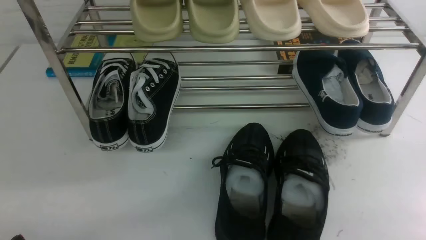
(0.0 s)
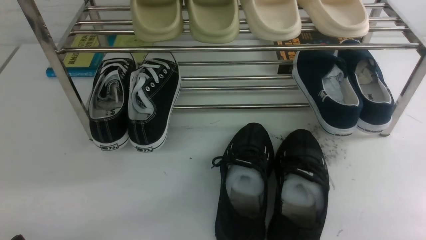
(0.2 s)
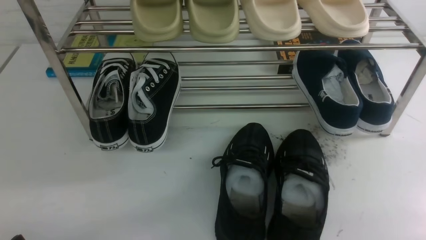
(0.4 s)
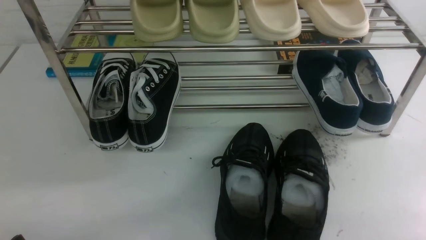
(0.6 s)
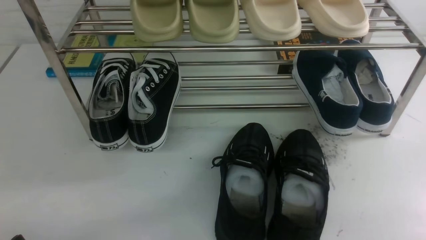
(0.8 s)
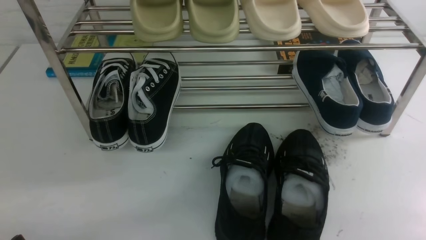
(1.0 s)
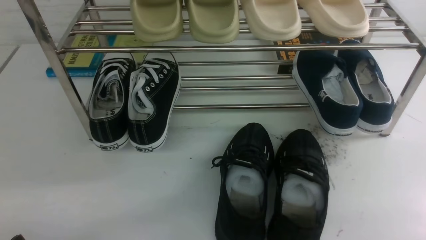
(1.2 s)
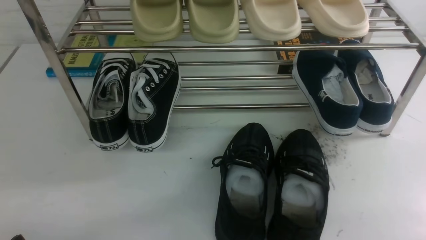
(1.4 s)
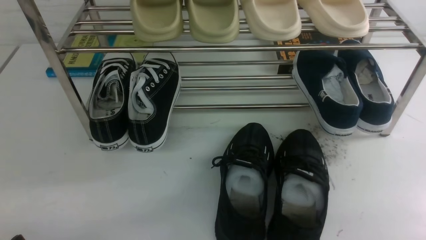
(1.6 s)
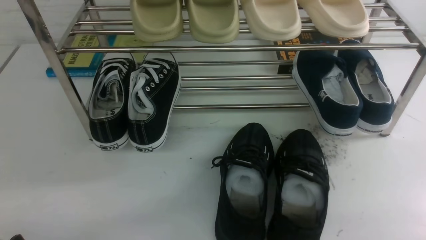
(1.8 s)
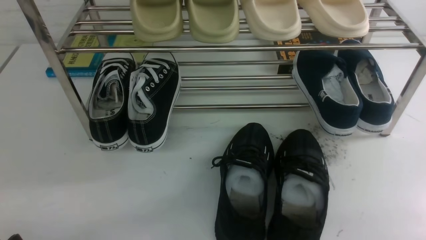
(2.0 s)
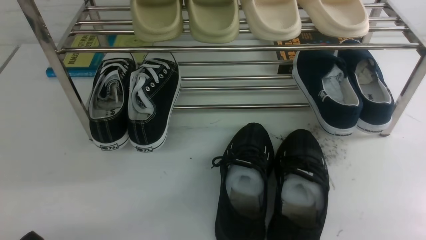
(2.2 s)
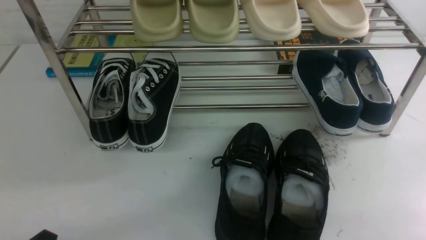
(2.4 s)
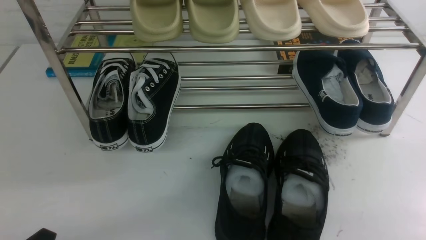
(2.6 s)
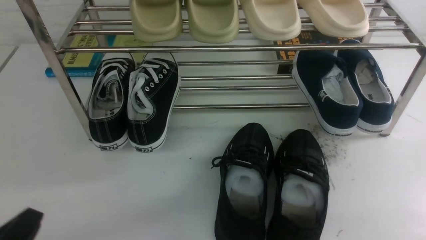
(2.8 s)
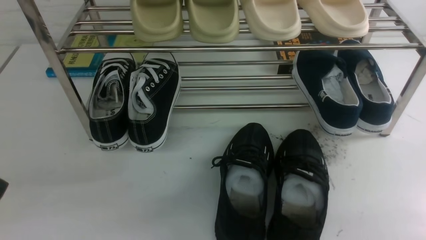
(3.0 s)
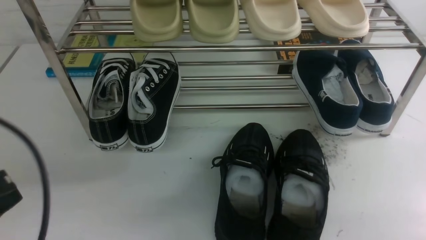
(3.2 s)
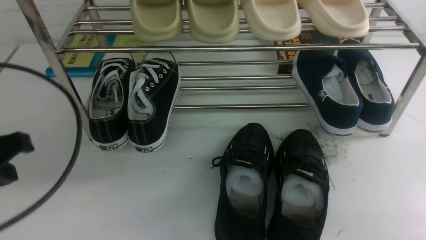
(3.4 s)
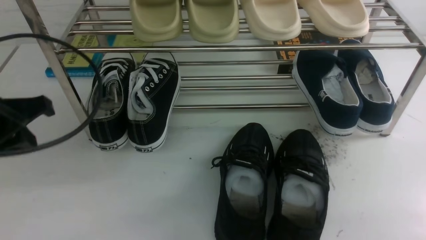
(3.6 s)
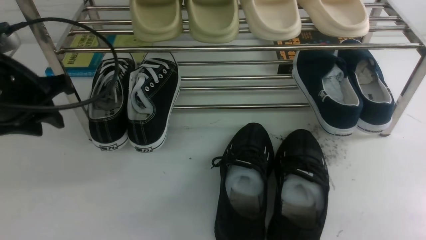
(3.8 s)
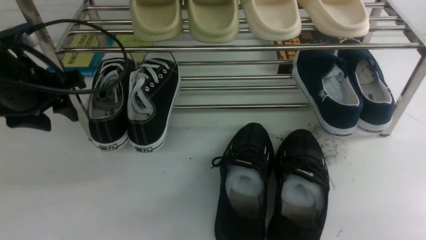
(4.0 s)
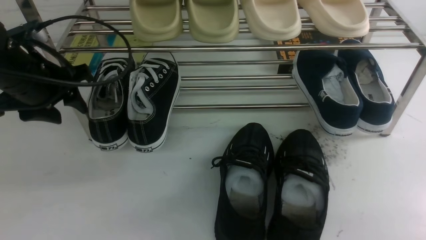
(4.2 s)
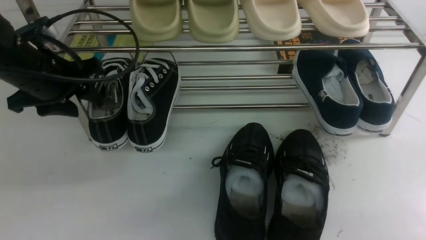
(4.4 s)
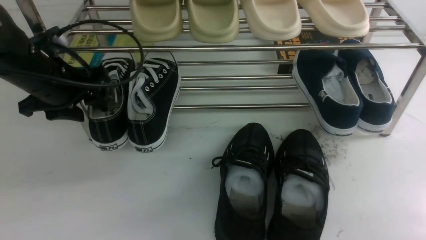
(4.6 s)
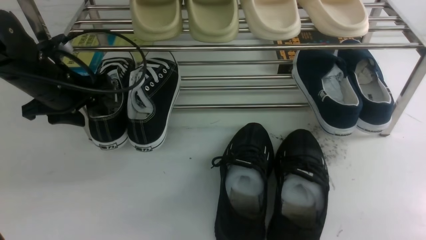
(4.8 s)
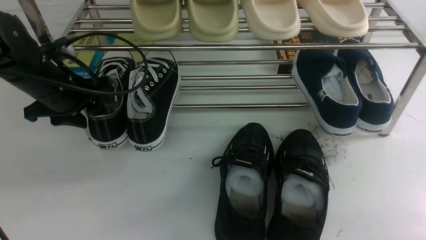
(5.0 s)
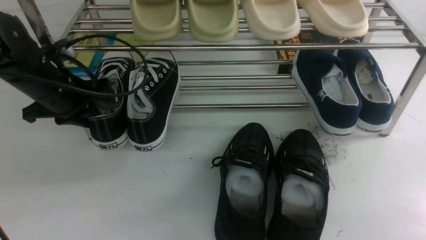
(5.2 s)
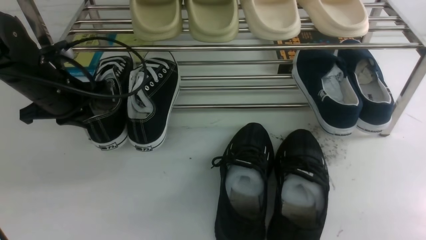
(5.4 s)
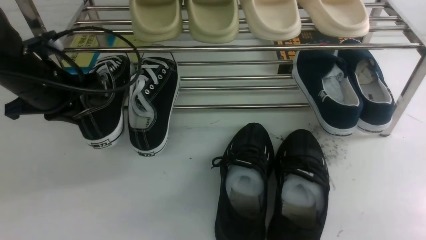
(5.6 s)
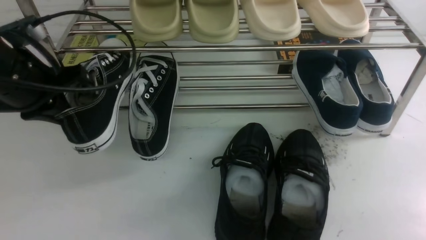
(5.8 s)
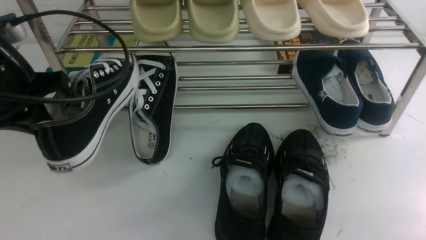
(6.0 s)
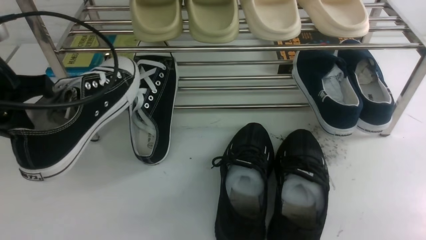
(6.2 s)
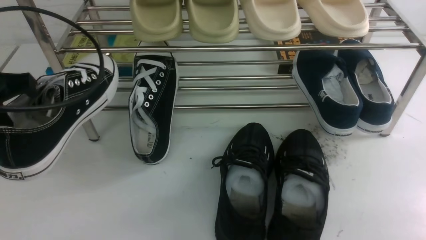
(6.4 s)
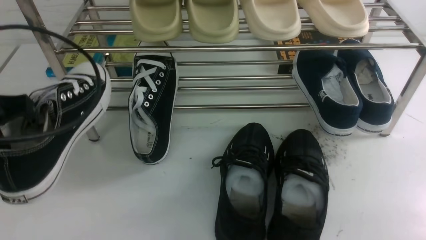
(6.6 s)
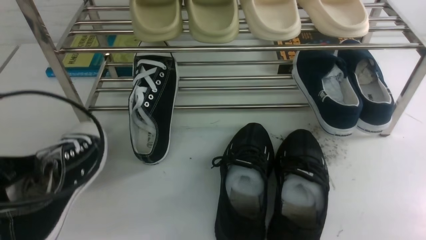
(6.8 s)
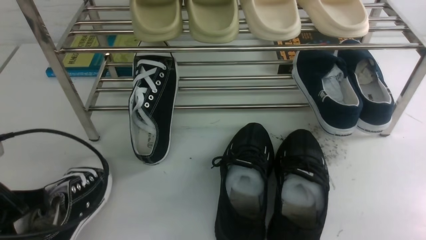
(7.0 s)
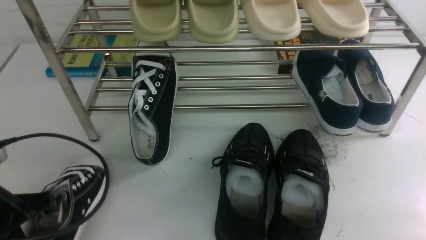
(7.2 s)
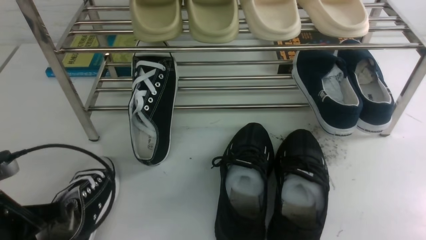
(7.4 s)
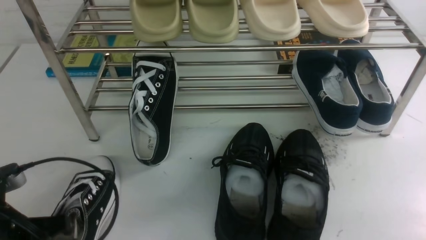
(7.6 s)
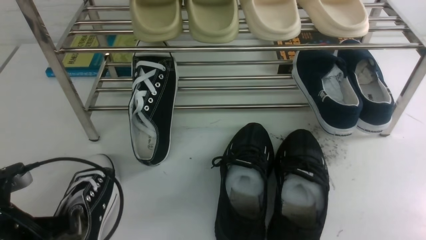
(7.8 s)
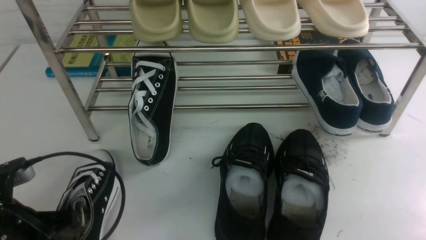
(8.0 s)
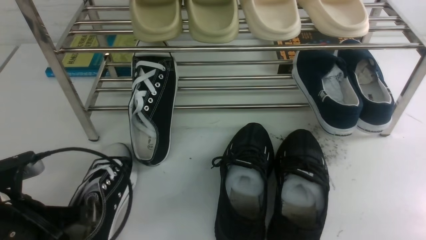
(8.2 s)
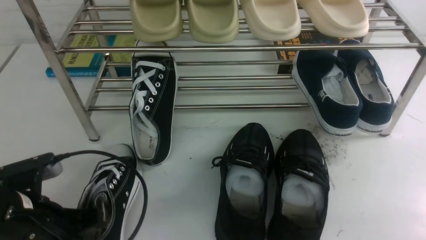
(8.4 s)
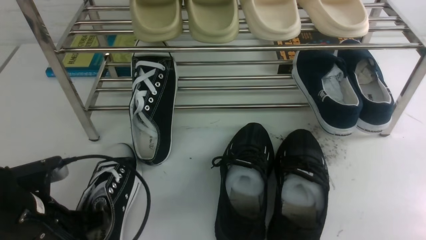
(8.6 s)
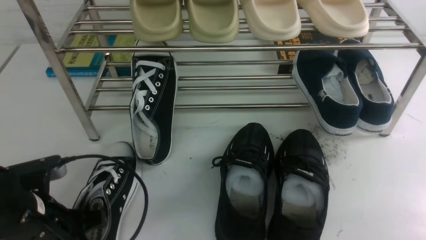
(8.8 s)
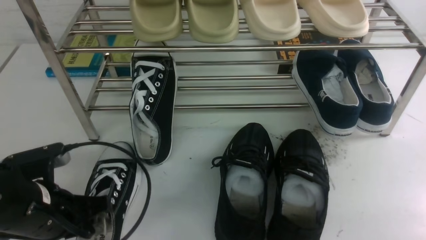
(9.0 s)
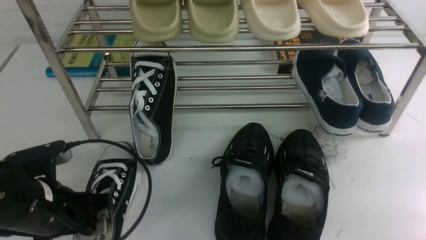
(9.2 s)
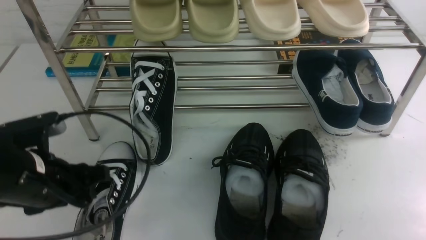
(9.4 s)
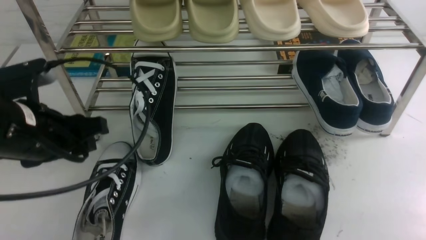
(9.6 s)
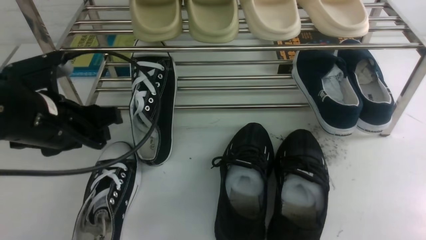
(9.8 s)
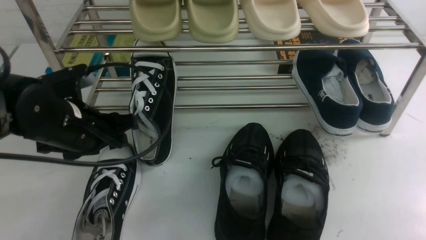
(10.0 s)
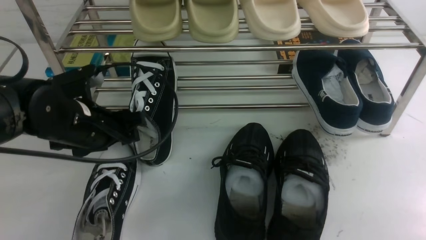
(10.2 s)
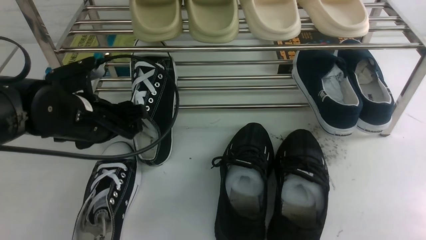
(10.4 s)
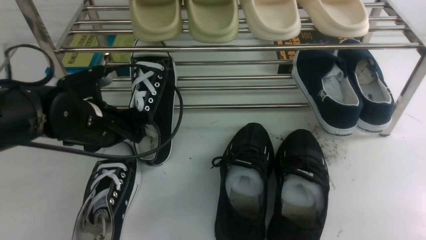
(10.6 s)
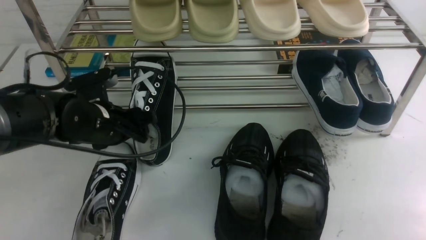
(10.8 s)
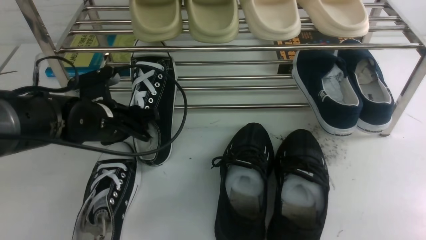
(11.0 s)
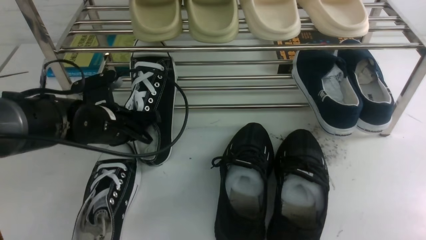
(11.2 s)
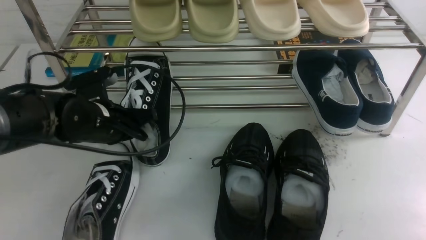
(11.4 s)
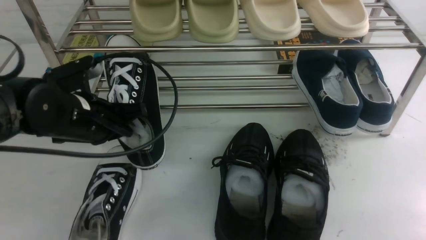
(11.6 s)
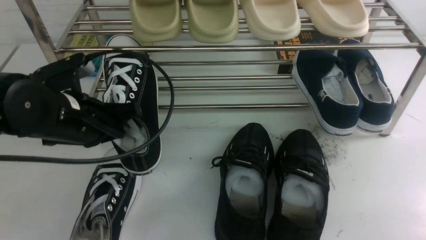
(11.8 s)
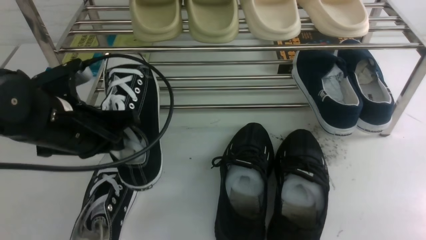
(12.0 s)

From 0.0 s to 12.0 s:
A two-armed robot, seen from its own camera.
Step, from 0.0 s to 5.8 s: use the left arm to clamp a shoe on the left side of the shoe rack.
Step, from 6.0 s to 9.4 s: Use your left arm to remove the clamped shoe from the shoe rack and put it down.
Step, from 9.6 s to 11.6 s: use the left arm to clamp a shoe on the left side of the shoe rack.
From 3.0 s to 4.4 s: The left gripper travels forward by about 30 cm, and opens.
From 4.4 s to 6.0 s: The left gripper shifts roughly 10 cm backward and upward, and closes.
From 6.0 s to 7.6 s: The left gripper heads downward and backward, covering about 15 cm.
From 7.6 s to 9.0 s: The left gripper ends up about 5 cm from where it was.
From 9.0 s to 10.4 s: The left gripper is displaced forward by roughly 10 cm, and opens.
From 10.4 s to 12.0 s: The left gripper shifts by about 5 cm, and closes its fingers.

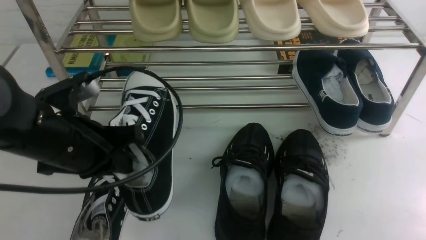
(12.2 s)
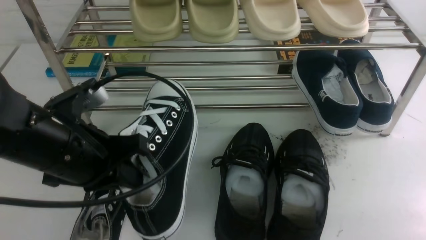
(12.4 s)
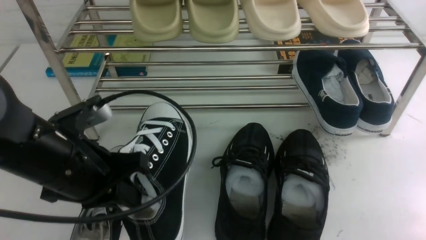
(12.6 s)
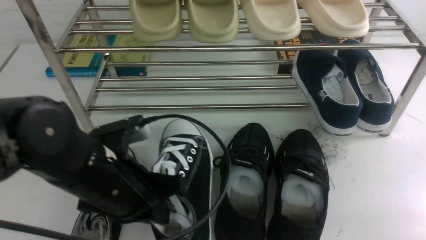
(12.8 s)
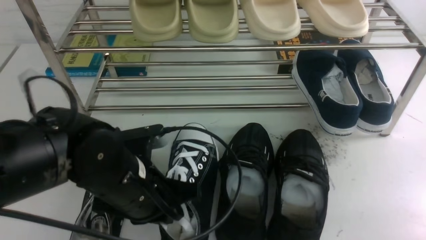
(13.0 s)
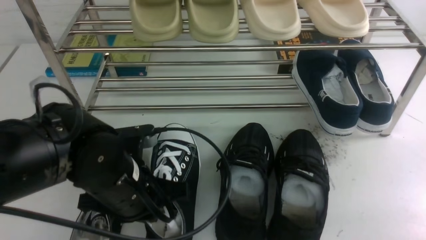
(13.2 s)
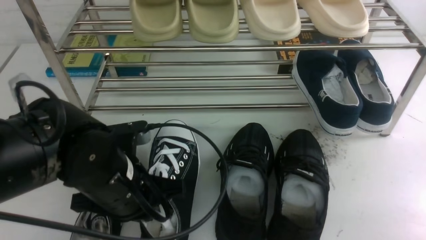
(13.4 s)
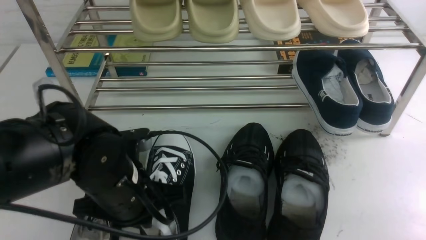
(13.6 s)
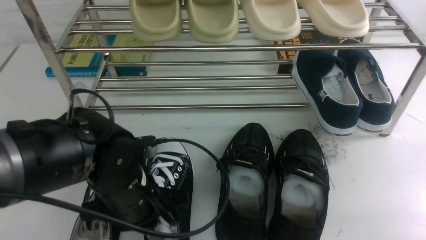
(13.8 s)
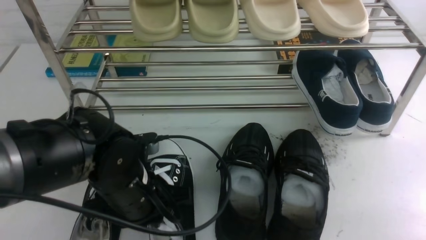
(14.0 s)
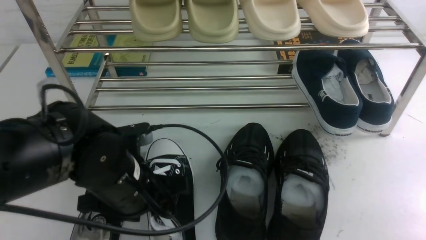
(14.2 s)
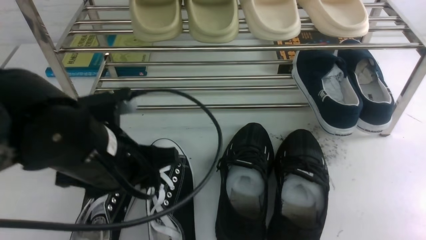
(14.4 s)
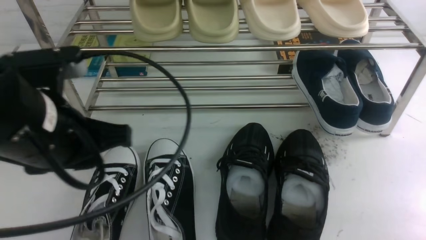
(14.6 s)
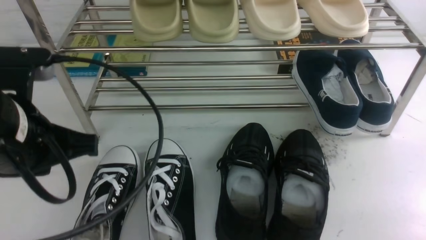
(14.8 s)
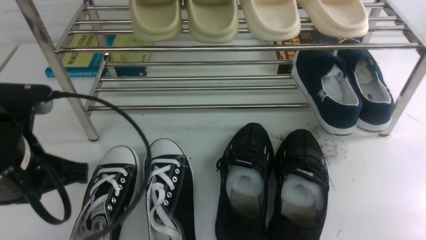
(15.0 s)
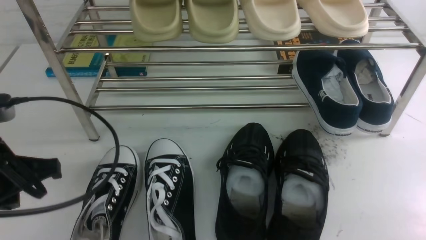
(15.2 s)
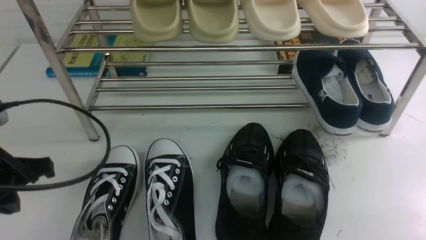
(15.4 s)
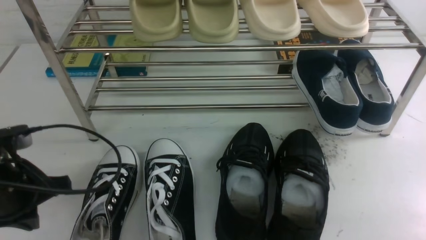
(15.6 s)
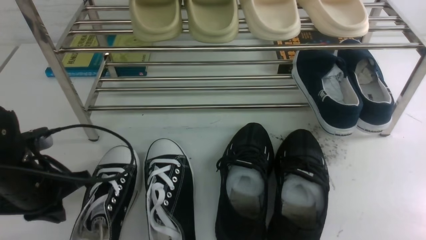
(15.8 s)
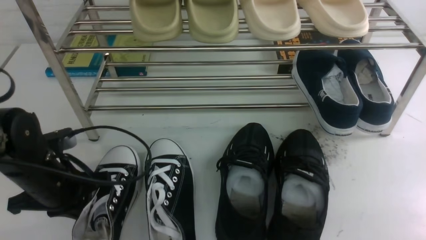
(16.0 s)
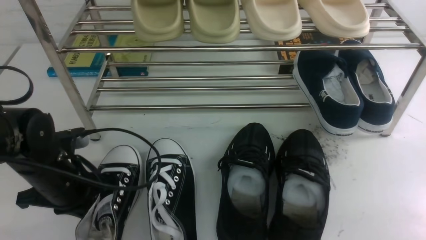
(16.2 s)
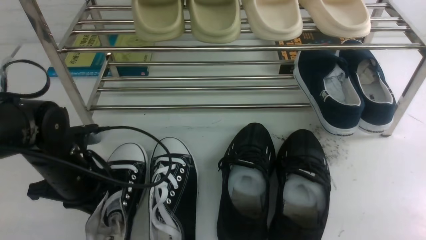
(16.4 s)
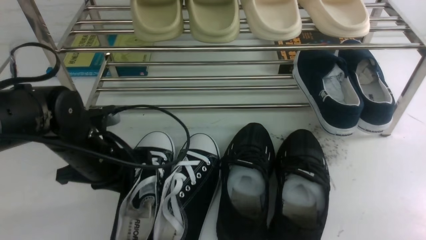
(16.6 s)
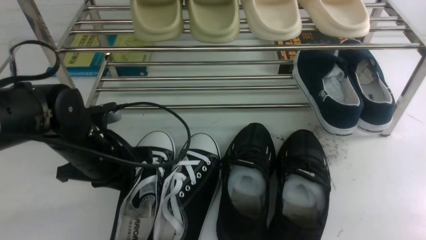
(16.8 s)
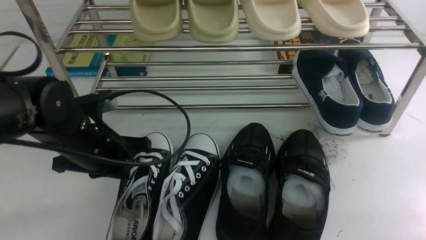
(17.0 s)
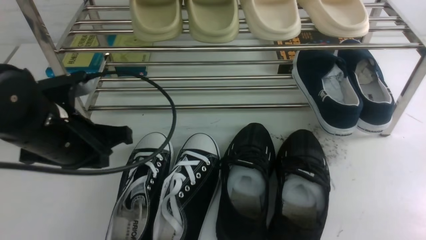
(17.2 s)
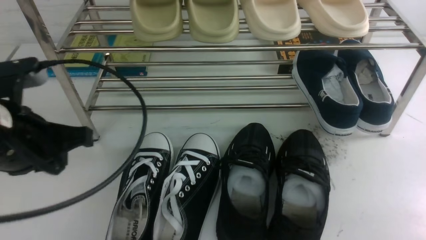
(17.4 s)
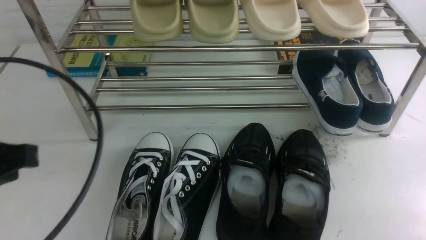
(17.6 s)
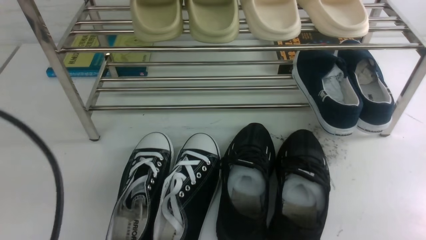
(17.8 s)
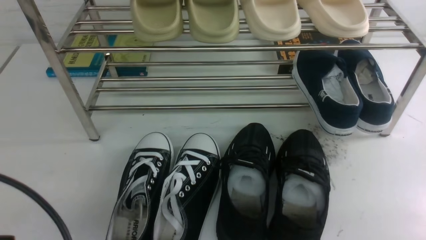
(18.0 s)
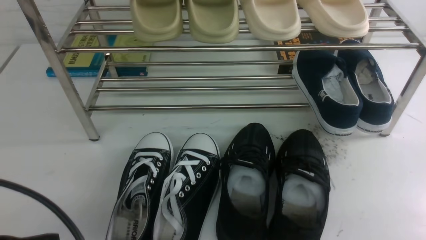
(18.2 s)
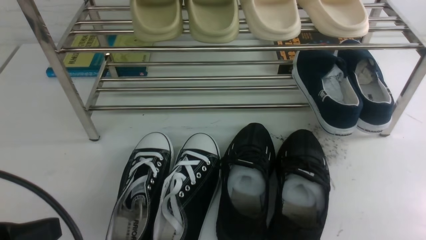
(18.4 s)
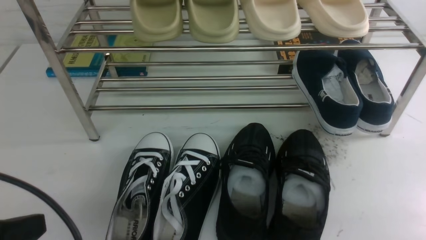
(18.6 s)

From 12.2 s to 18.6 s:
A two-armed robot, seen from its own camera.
Step, from 12.2 s to 14.2 s: Use your left arm to remove the clamped shoe from the shoe rack and put it down.
From 12.2 s to 13.8 s: The left gripper travels downward and to the right by approximately 10 cm.
From 13.8 s to 15.4 s: The left gripper goes roughly 15 cm to the left, and opens, then closes once more.
From 15.4 s to 17.0 s: The left gripper moves to the right and forward, about 10 cm, and goes downward and returns, roughly 10 cm each way.
From 17.0 s to 18.6 s: The left gripper moves backward, about 20 cm.
